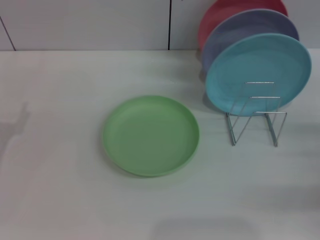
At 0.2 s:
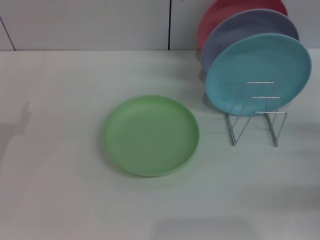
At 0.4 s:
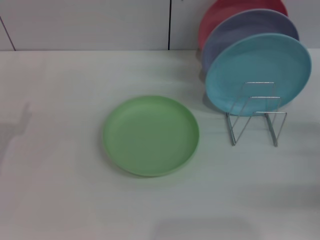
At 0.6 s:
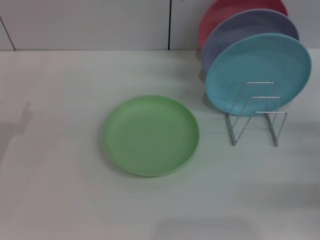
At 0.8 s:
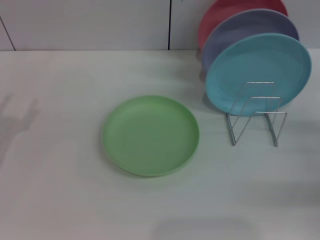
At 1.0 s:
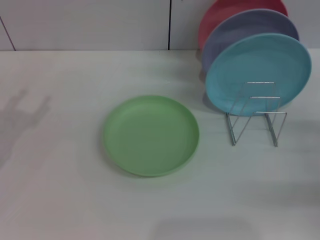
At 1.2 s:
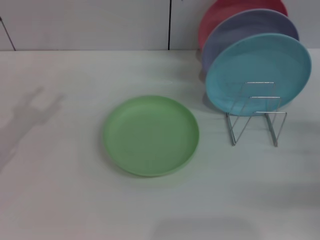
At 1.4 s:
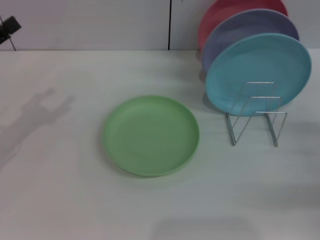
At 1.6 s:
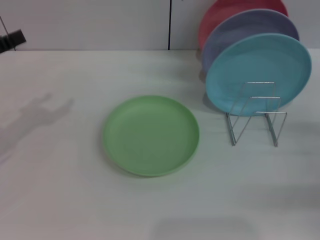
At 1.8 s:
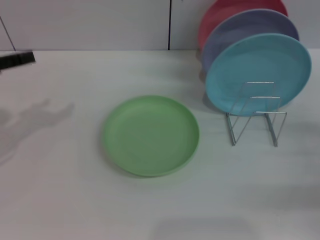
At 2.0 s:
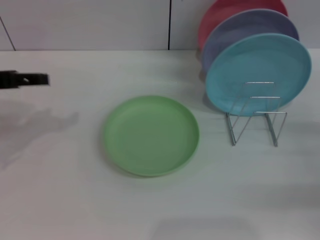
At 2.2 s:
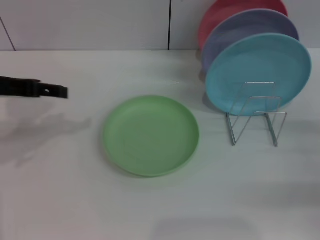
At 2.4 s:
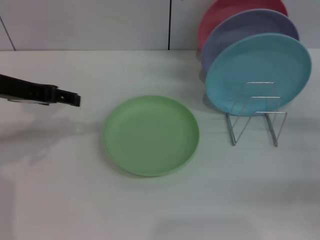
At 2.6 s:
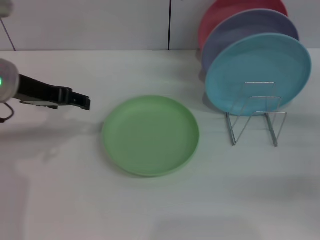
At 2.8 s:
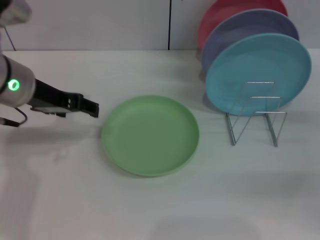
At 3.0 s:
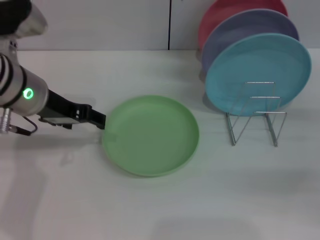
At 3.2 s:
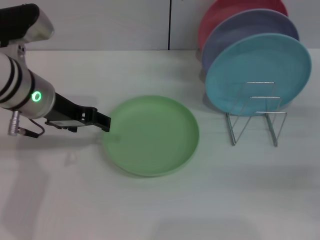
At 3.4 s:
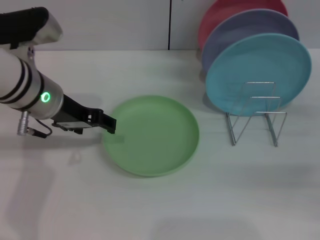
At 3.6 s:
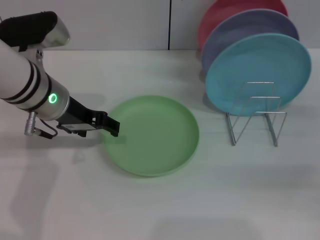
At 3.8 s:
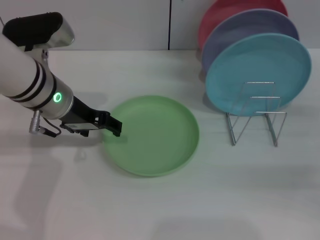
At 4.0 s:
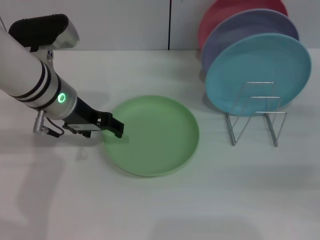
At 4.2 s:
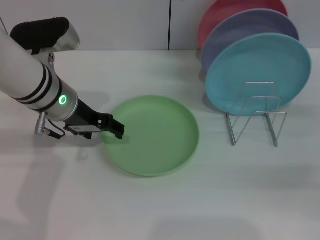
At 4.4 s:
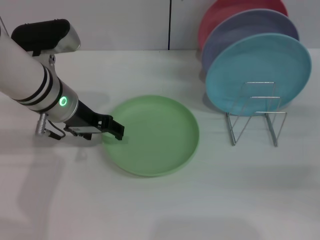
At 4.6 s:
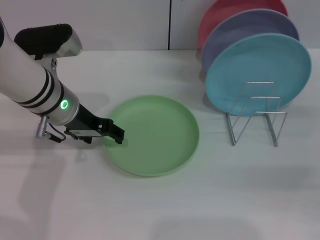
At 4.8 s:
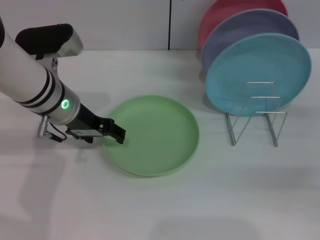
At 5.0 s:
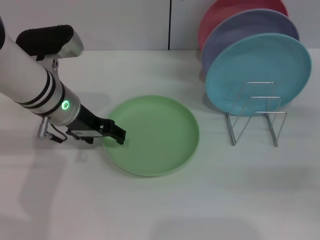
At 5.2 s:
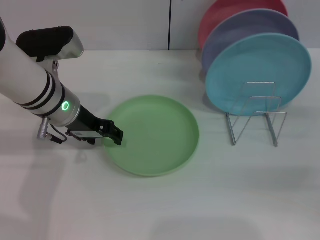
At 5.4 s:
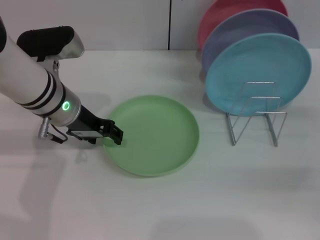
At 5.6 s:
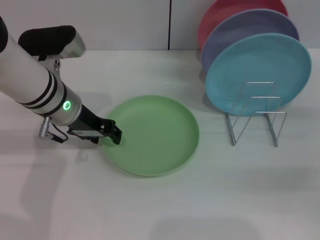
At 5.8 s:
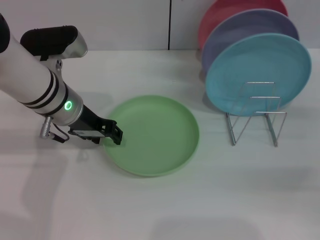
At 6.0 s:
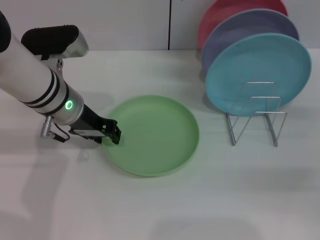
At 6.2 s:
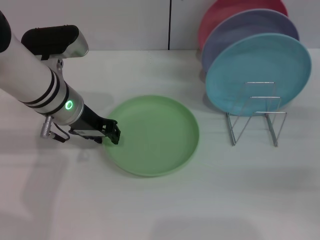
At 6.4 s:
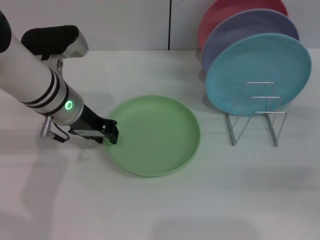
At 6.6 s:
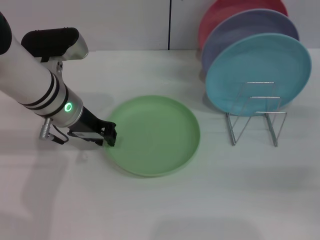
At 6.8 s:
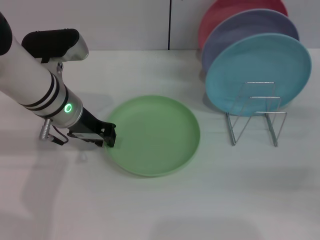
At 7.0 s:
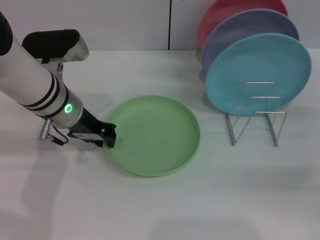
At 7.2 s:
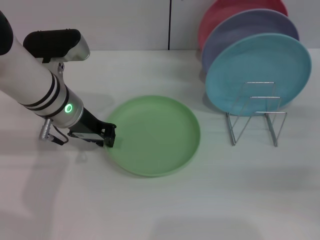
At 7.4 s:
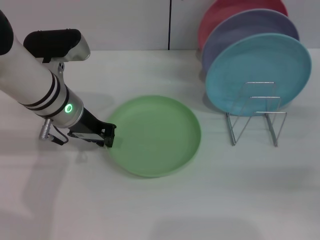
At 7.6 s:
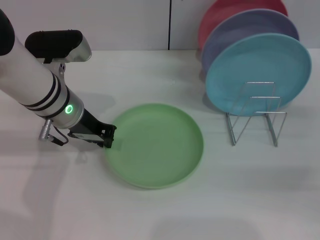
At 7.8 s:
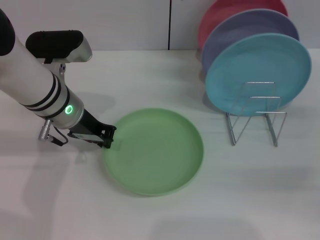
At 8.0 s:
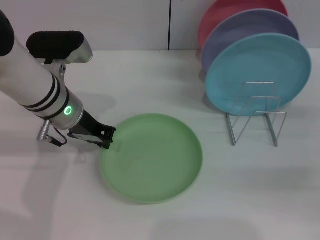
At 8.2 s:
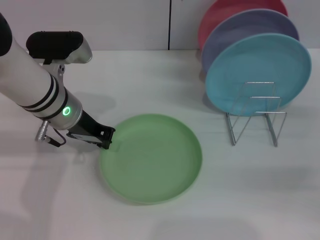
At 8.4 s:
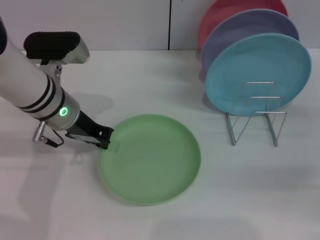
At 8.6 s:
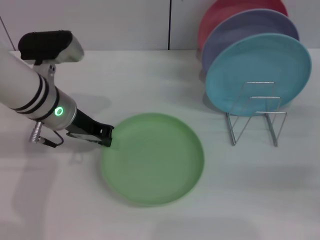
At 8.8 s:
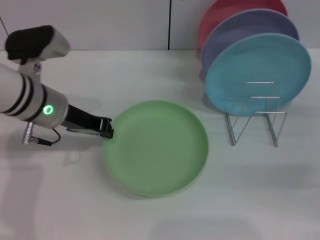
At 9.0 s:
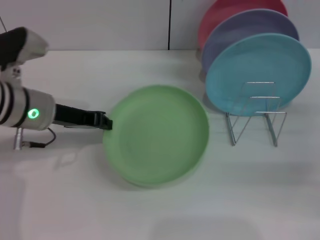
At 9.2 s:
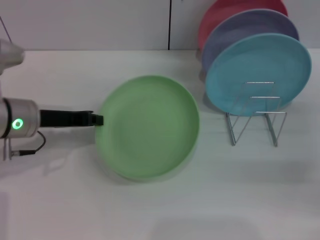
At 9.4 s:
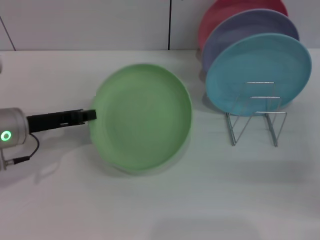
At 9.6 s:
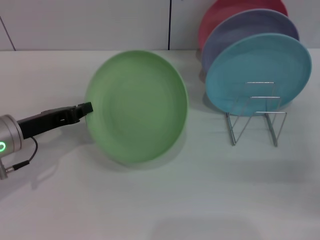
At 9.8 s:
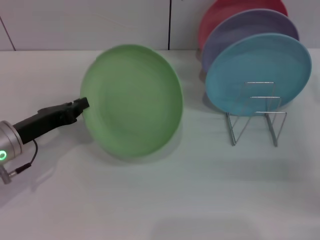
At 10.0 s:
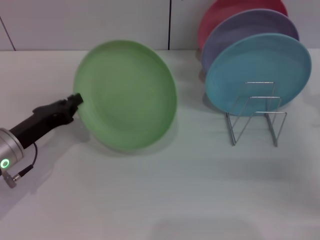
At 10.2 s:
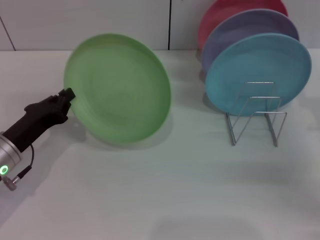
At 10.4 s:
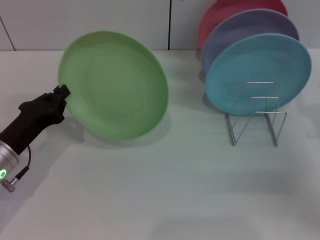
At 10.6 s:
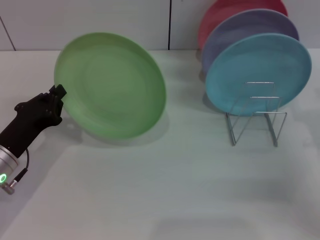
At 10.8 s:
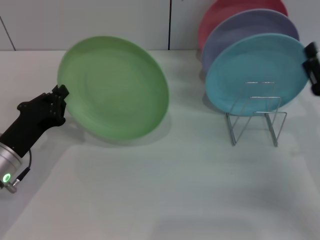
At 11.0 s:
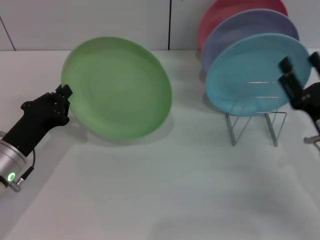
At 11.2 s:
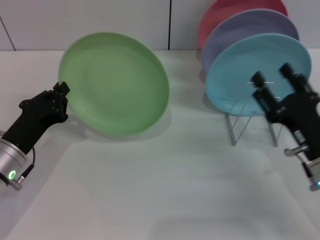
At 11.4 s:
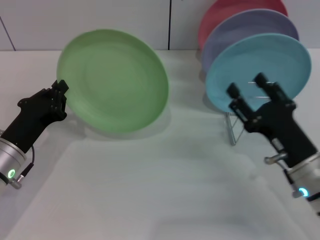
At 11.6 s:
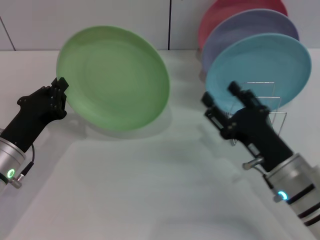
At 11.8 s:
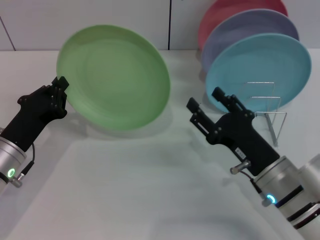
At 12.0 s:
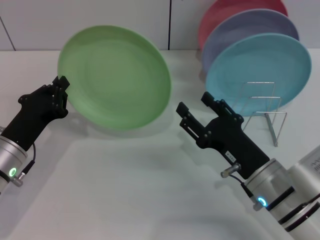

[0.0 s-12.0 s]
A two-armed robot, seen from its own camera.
Task of the whole recording: Grip the plate with one hand, pass it to the other, then set it on the shelf.
Step, 0.0 to 10.0 s: Pick up the plate with the left gripper.
1.6 to 3.0 s: The left gripper travels to the right by some 15 cm.
3.0 to 4.4 s: The left gripper moves about 5 cm.
4.4 to 6.0 s: Both grippers stay put.
6.0 to 7.6 s: The left gripper closes its fingers.
7.6 to 9.0 s: The left gripper shifts some 5 cm to the left.
9.0 to 10.4 s: The left gripper goes roughly 15 cm downward, backward and to the left. The right gripper moves to the left, roughly 5 cm.
10.4 to 12.0 s: The right gripper moves to the left, about 15 cm.

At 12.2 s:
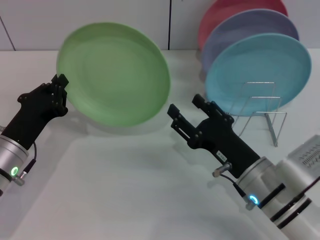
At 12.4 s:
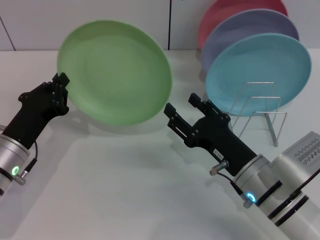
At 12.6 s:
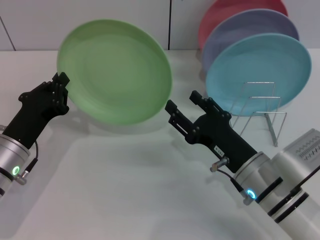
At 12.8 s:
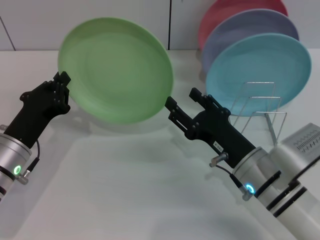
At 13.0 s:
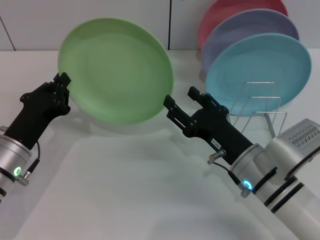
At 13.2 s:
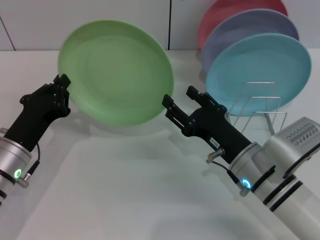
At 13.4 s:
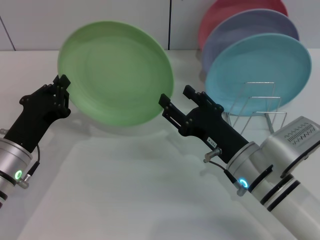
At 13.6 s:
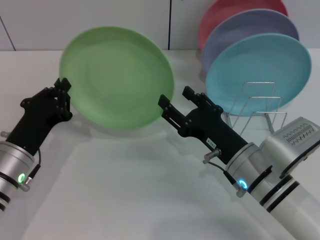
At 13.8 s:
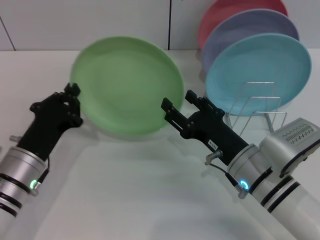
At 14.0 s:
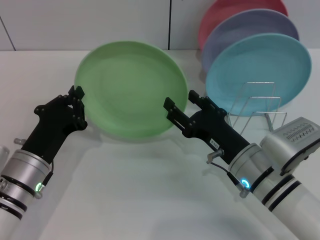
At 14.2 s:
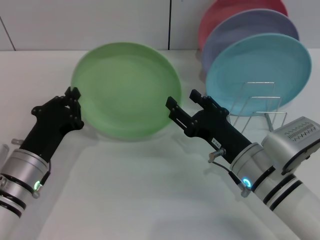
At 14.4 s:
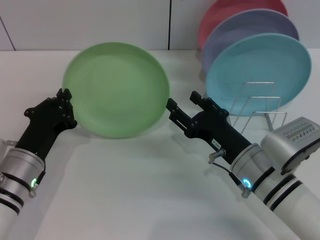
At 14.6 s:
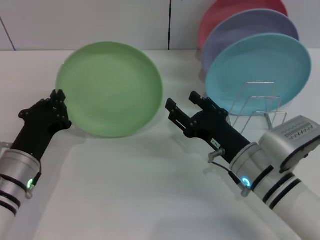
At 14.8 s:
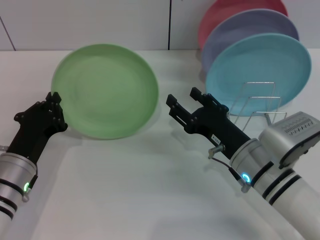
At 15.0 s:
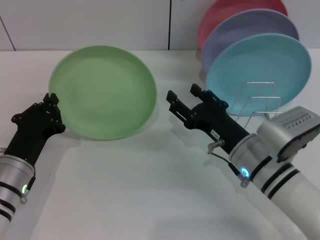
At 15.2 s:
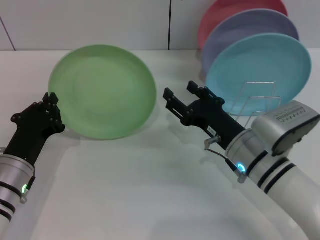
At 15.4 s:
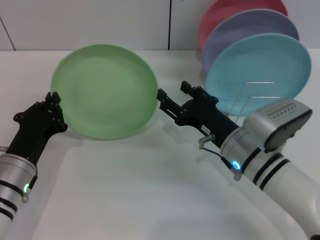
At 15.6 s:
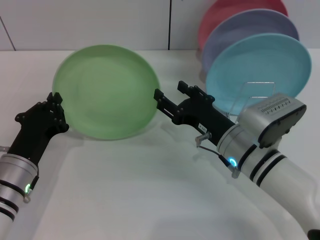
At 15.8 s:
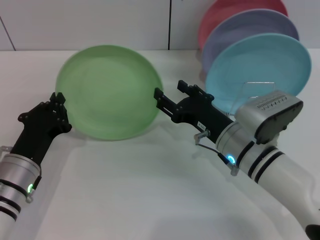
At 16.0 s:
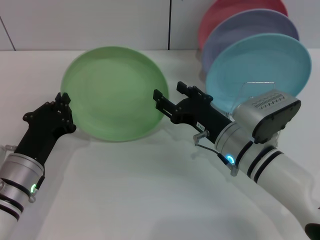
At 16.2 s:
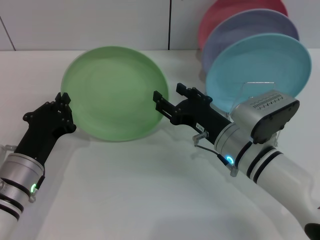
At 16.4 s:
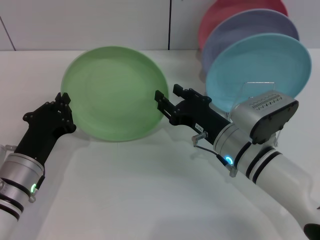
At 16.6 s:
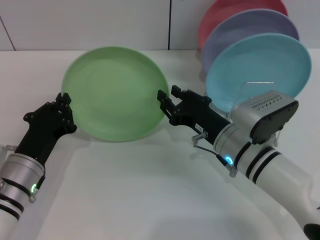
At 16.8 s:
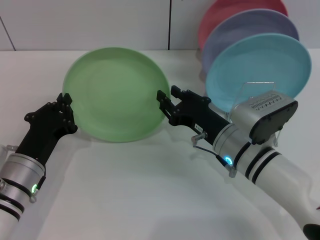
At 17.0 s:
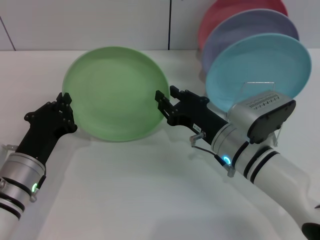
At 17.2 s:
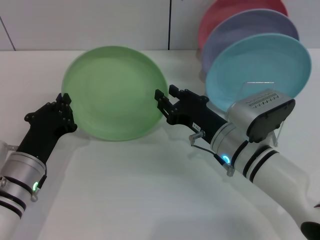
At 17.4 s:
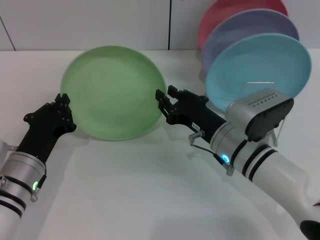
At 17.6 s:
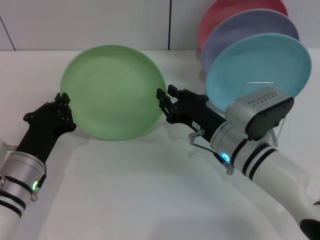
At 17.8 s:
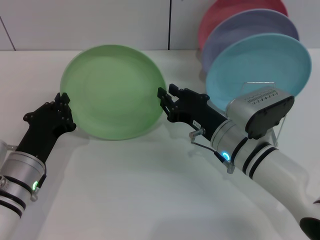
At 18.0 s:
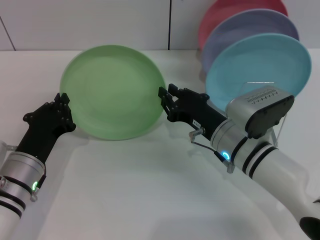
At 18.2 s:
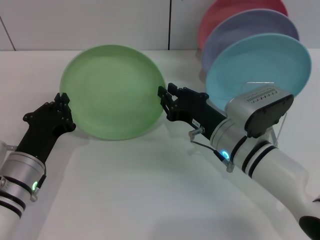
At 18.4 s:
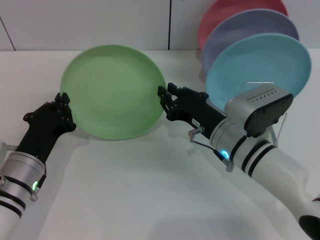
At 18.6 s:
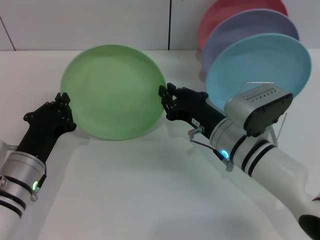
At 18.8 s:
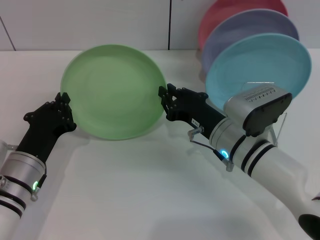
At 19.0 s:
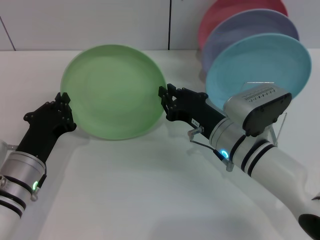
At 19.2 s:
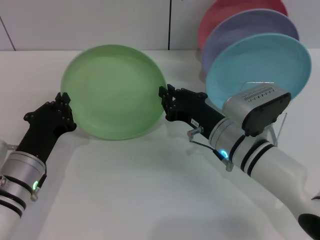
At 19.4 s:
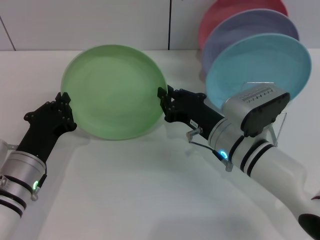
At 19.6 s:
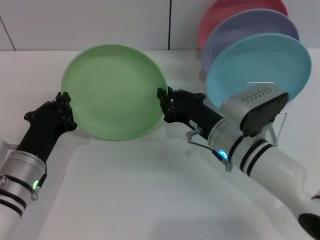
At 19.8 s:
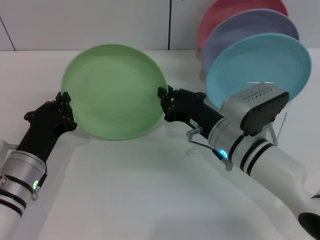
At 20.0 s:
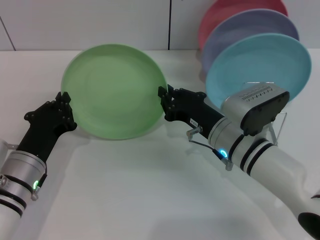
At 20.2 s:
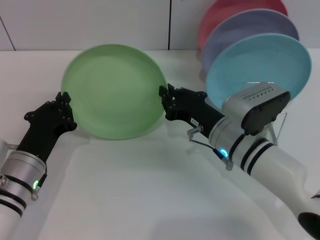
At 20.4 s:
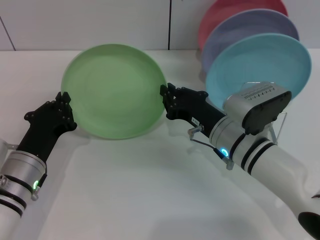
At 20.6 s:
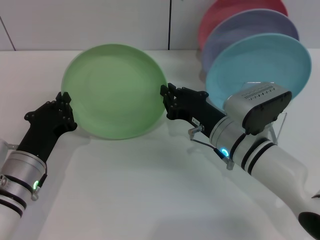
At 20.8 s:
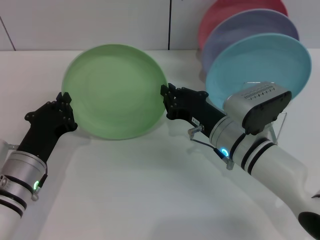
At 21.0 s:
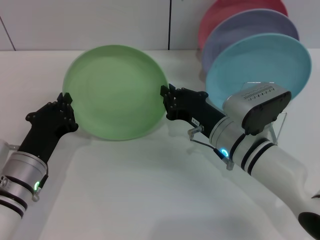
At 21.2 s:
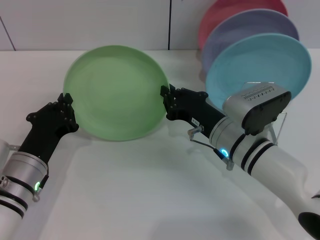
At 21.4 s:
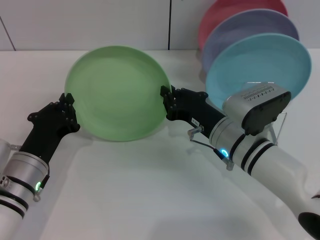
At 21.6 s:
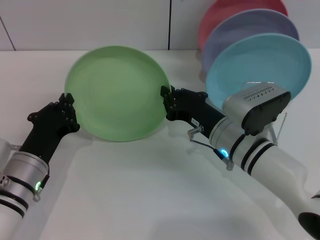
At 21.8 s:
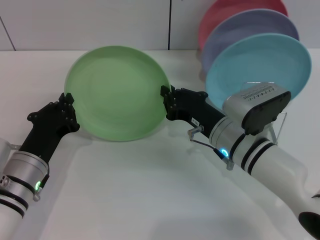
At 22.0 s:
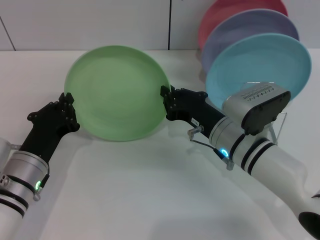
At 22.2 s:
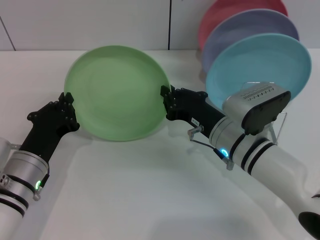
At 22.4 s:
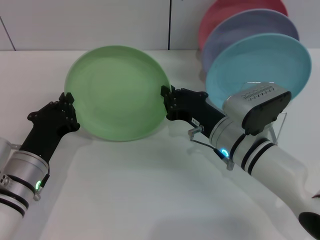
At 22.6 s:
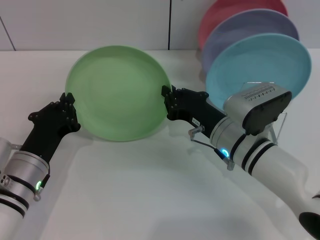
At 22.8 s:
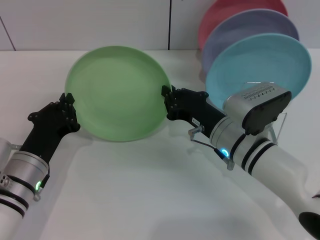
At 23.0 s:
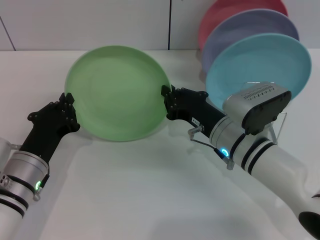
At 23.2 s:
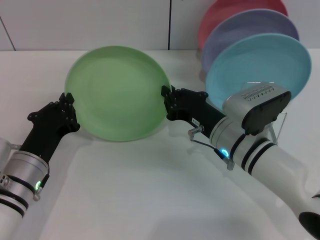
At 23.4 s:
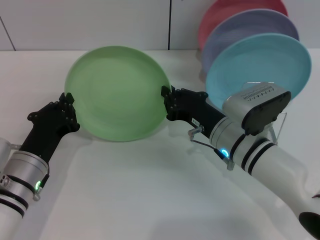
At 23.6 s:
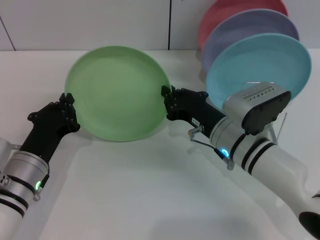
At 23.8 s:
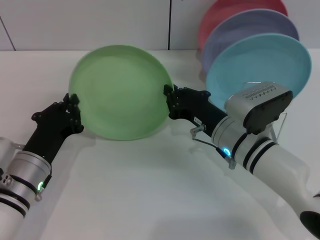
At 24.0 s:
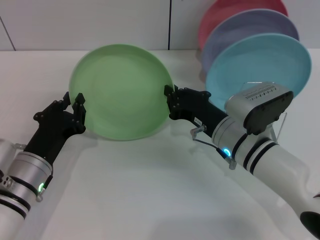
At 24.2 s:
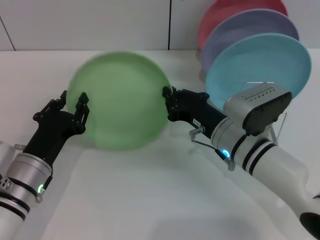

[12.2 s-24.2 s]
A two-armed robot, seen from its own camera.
Task of the whole recording: Grip the plate with one hand, pass it to the other, then set it on the shelf.
12.2 to 13.8 s: There are only small adjustments of the grippers.
15.2 to 16.6 s: The grippers stay close to where they were, moving slightly.
16.6 to 18.2 s: The right gripper closes its fingers.
18.2 to 24.2 s: Neither gripper changes place.
